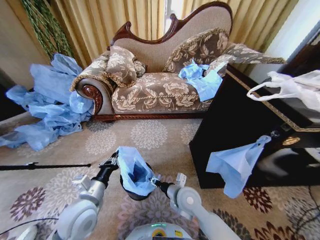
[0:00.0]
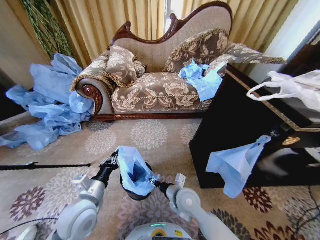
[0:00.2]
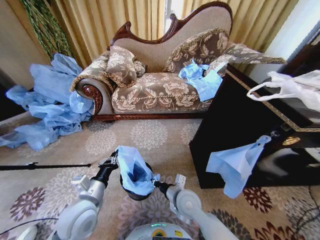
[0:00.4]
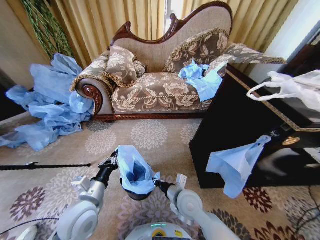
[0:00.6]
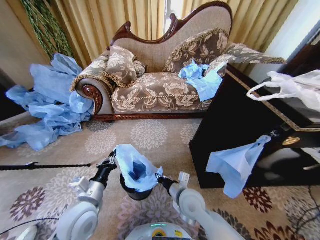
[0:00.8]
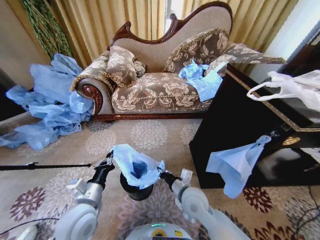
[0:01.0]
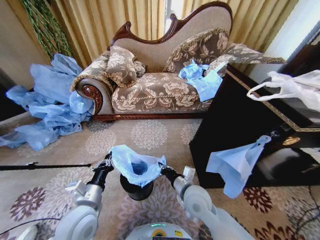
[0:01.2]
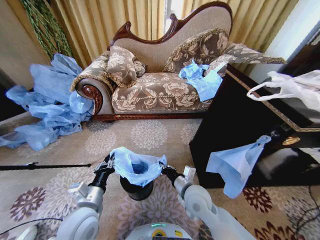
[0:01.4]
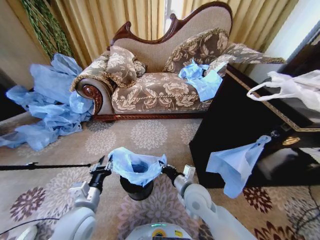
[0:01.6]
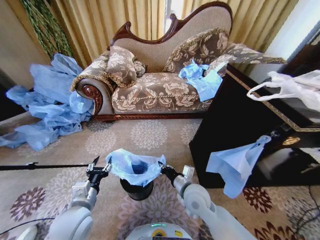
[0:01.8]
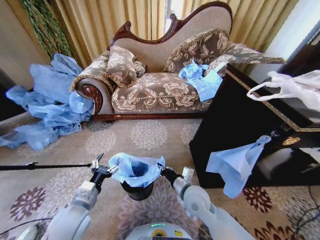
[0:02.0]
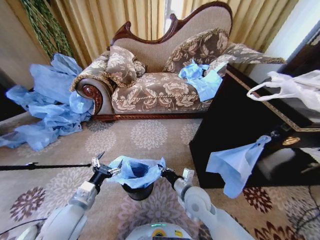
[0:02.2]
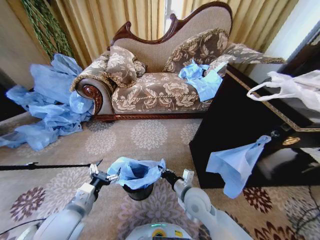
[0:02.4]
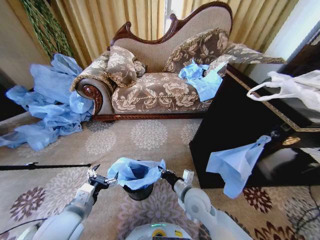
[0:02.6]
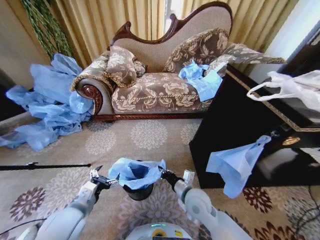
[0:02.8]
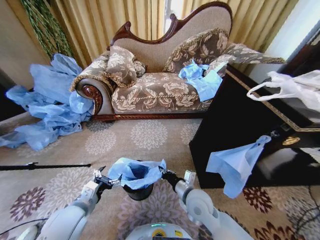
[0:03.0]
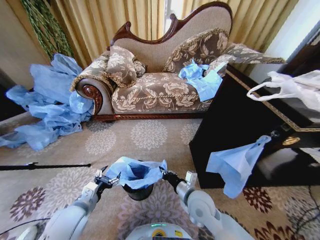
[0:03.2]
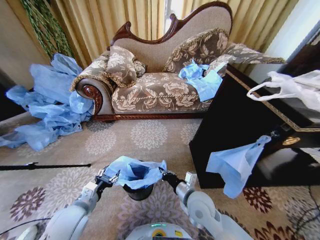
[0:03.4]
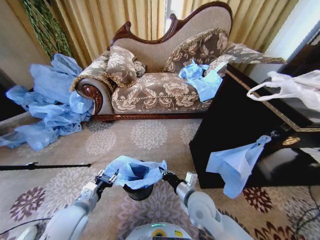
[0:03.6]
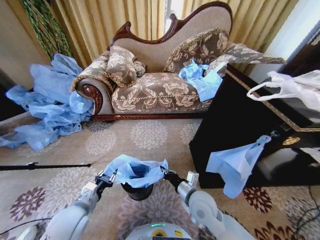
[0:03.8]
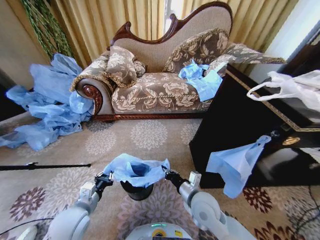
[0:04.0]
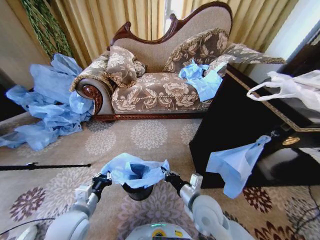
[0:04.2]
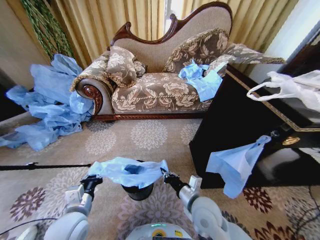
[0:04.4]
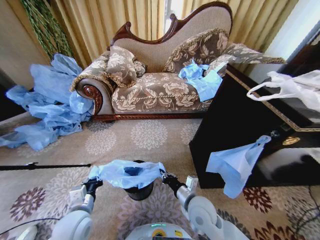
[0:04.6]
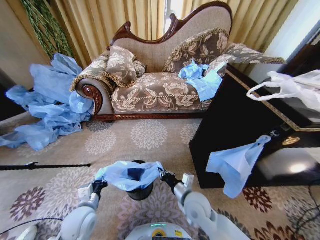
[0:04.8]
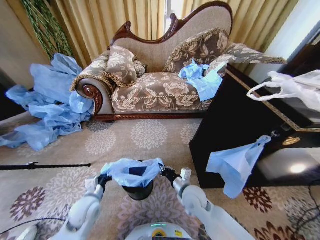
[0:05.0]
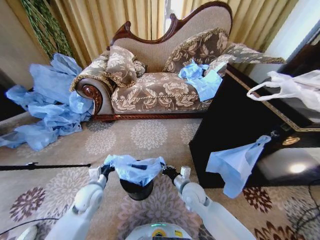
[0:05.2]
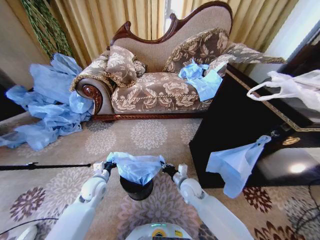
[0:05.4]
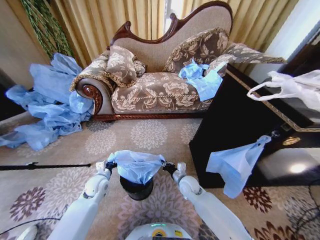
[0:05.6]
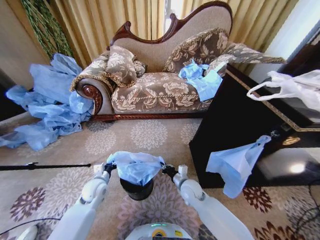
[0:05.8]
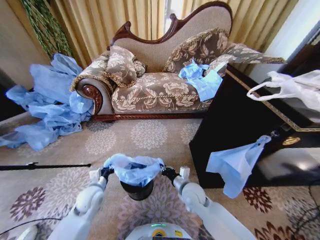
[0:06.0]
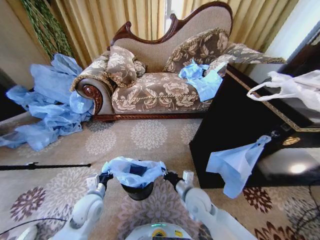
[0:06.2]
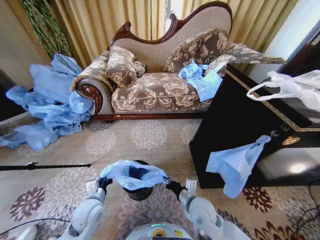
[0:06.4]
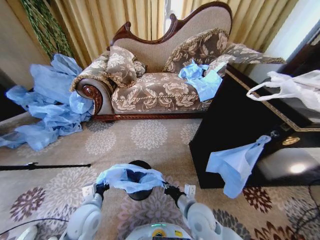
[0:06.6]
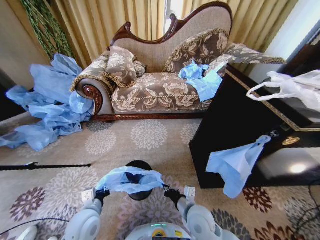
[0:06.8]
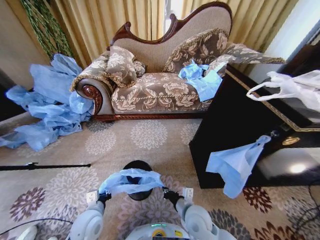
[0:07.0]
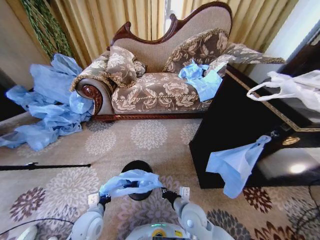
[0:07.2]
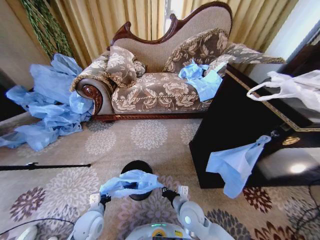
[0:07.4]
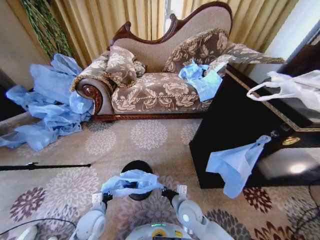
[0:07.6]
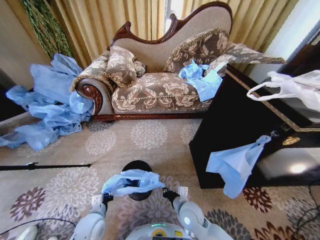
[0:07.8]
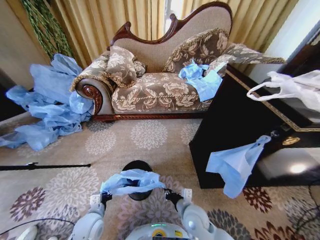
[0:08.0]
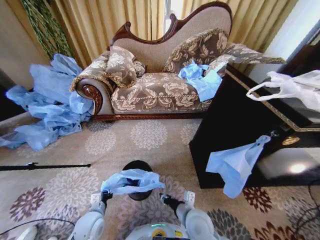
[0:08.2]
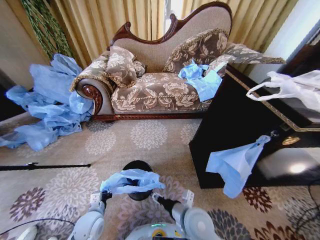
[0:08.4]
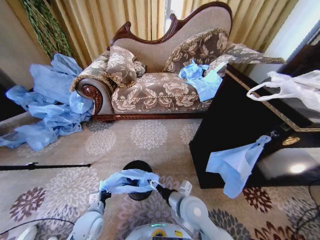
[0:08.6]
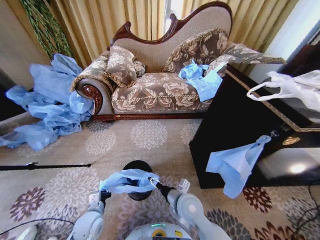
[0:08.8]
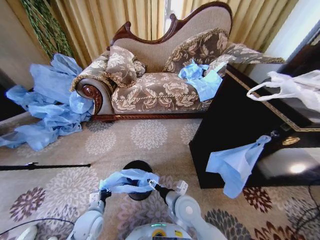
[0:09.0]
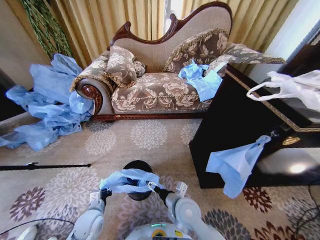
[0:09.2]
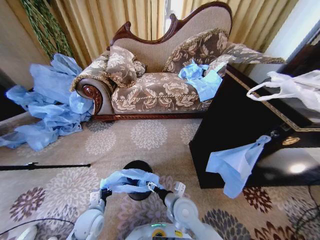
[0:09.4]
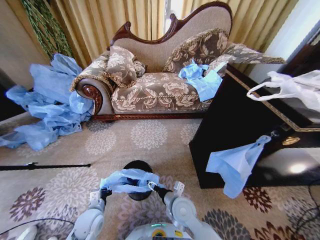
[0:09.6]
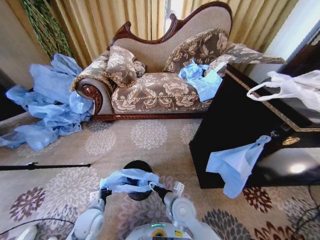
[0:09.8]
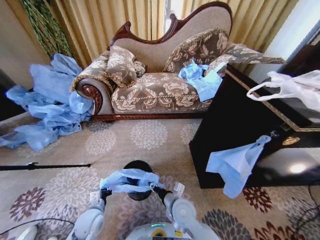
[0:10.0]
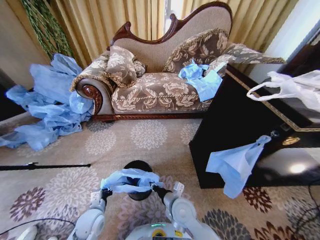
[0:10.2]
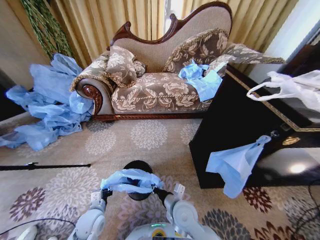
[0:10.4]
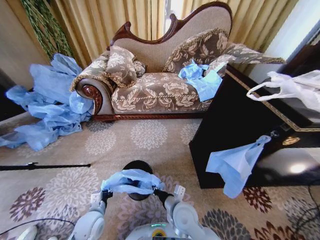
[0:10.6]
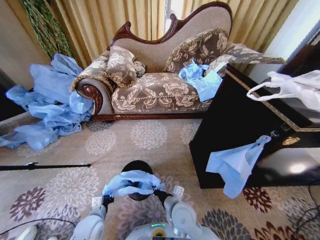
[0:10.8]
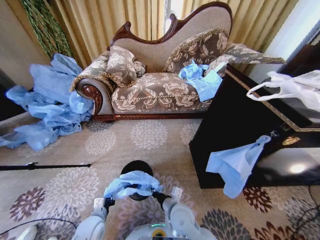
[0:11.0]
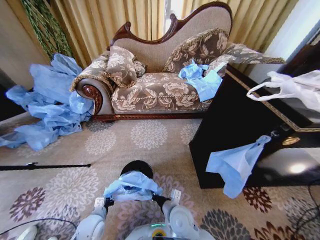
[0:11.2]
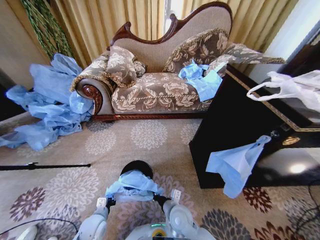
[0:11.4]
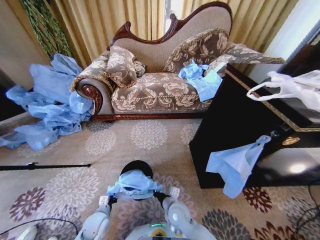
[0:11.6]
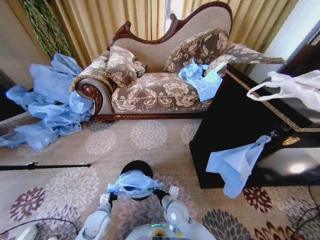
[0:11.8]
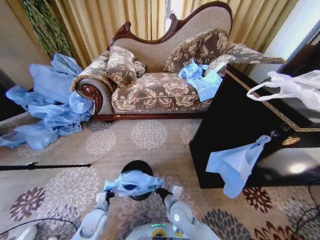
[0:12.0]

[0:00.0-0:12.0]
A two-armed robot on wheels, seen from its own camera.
Task of the whole recording: Place a garbage bag over the trash bin.
0:00.0 to 0:01.6: The right gripper closes. Meanwhile the left gripper opens.
0:01.6 to 0:03.0: The left gripper opens.
0:03.0 to 0:04.4: The left gripper closes.
0:04.4 to 0:06.0: Both grippers travel together forward and downward, about 10 cm.
0:06.0 to 0:07.6: The left gripper moves backward and downward, about 10 cm; the right gripper heads backward, covering some 5 cm.
0:07.6 to 0:09.0: The right gripper shifts approximately 5 cm upward, and opens.
0:09.0 to 0:10.4: The right gripper closes its fingers.
0:10.4 to 0:12.0: The grippers both shift downward by some 5 cm.

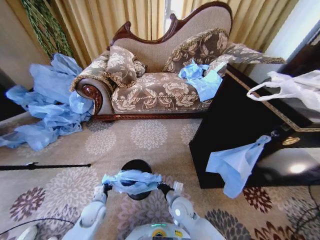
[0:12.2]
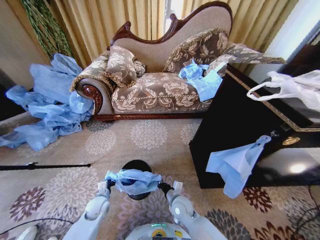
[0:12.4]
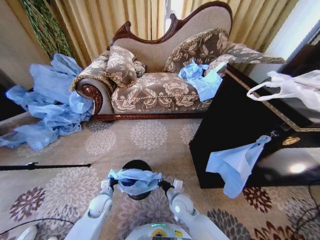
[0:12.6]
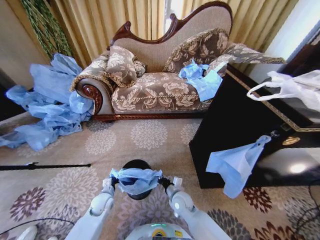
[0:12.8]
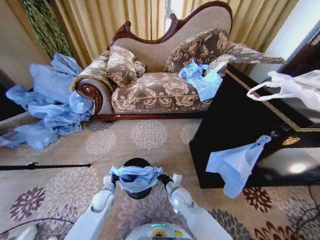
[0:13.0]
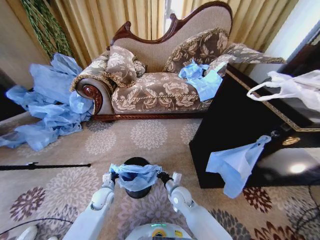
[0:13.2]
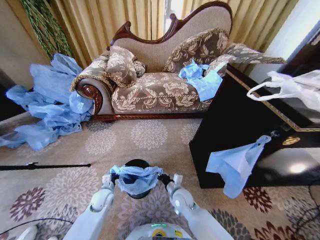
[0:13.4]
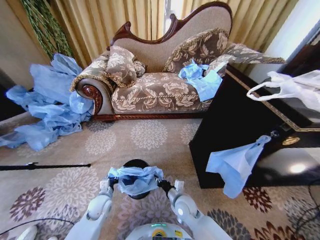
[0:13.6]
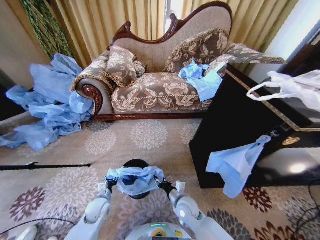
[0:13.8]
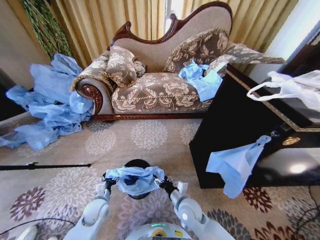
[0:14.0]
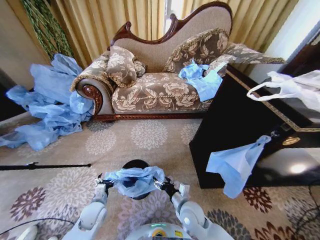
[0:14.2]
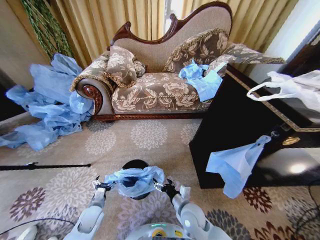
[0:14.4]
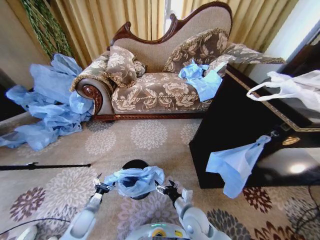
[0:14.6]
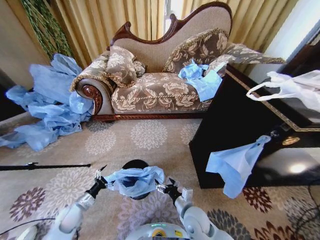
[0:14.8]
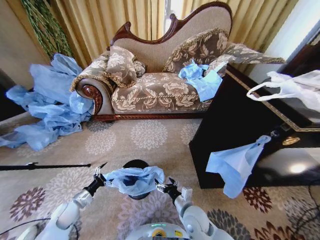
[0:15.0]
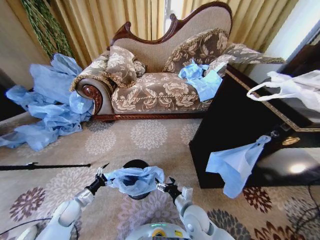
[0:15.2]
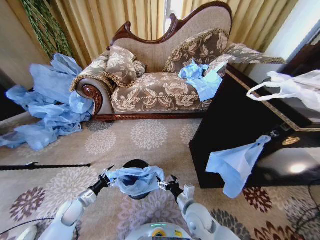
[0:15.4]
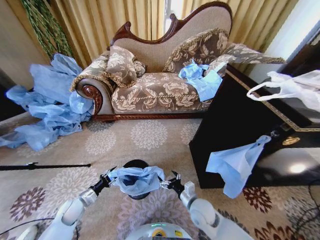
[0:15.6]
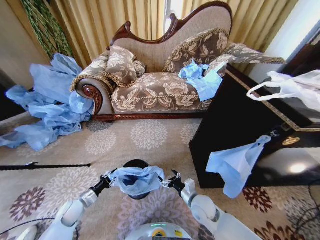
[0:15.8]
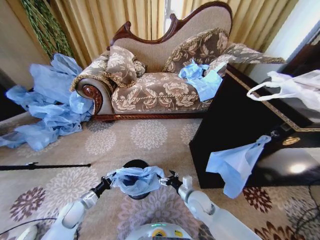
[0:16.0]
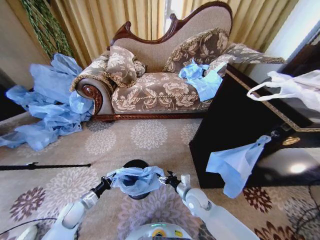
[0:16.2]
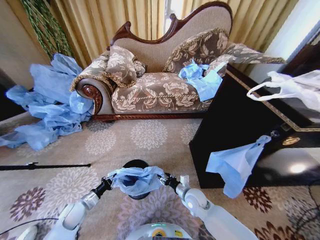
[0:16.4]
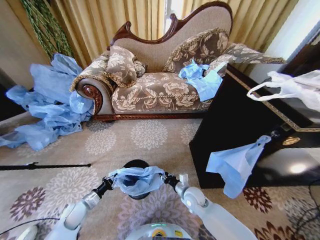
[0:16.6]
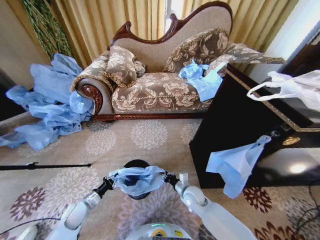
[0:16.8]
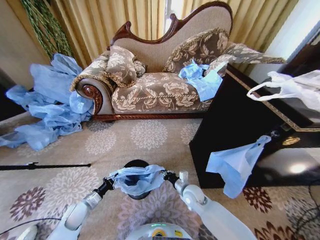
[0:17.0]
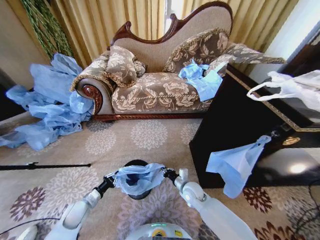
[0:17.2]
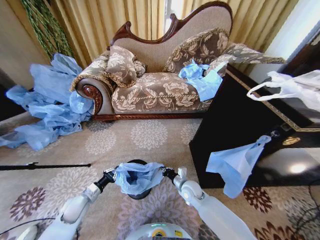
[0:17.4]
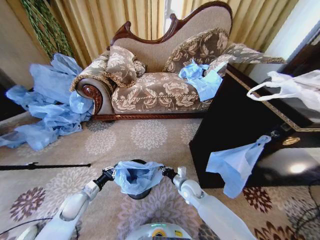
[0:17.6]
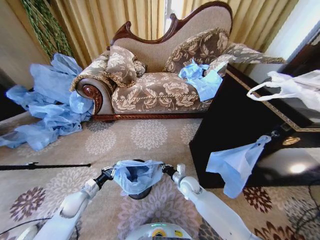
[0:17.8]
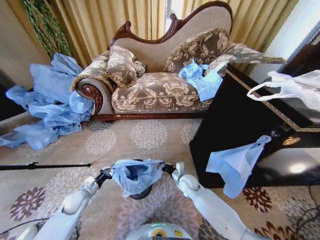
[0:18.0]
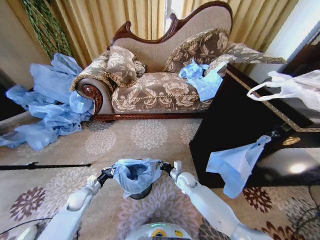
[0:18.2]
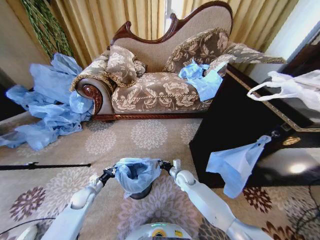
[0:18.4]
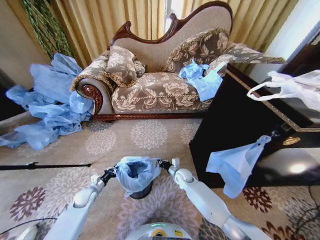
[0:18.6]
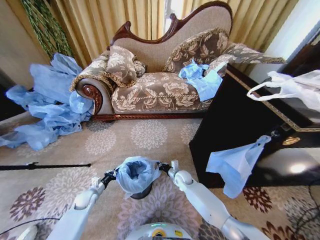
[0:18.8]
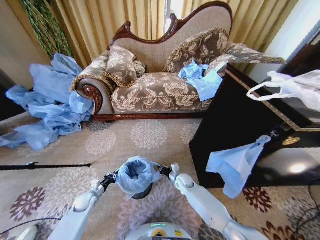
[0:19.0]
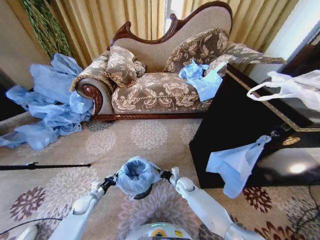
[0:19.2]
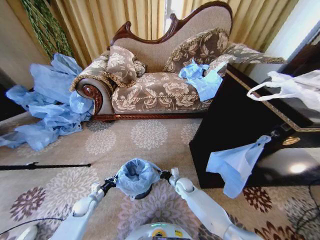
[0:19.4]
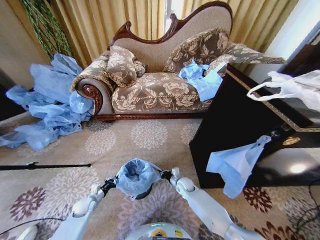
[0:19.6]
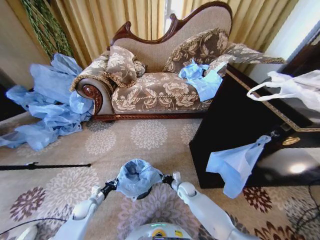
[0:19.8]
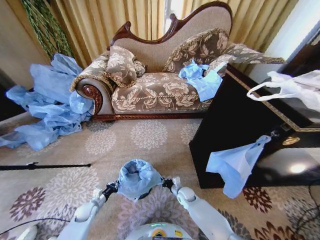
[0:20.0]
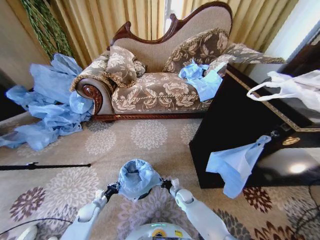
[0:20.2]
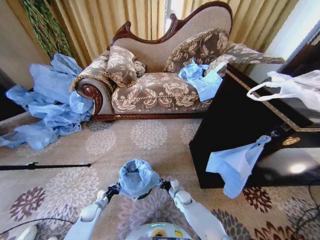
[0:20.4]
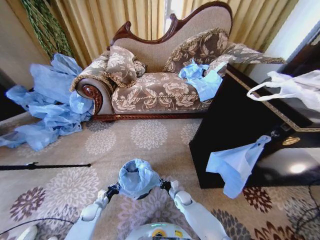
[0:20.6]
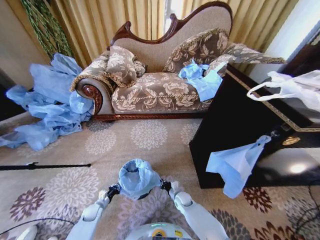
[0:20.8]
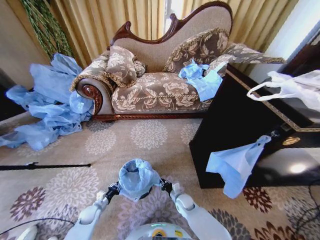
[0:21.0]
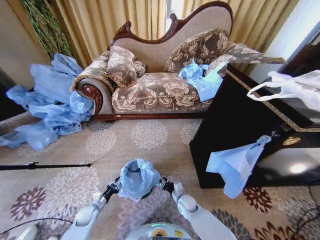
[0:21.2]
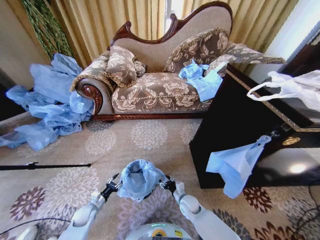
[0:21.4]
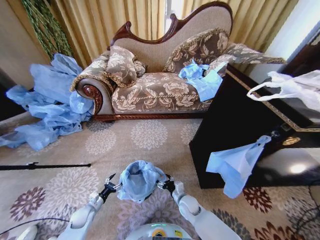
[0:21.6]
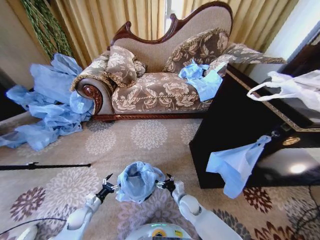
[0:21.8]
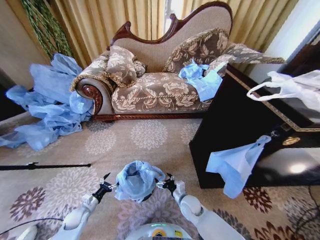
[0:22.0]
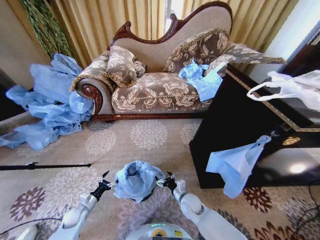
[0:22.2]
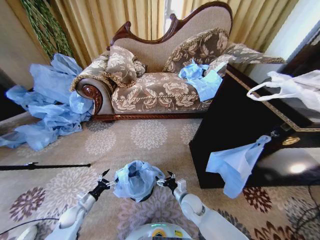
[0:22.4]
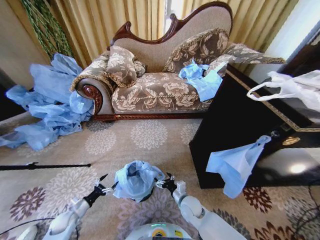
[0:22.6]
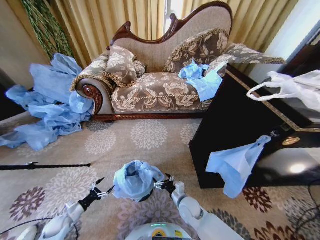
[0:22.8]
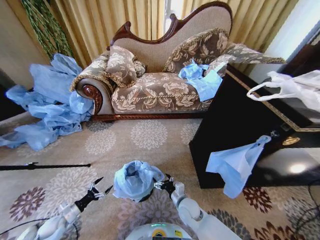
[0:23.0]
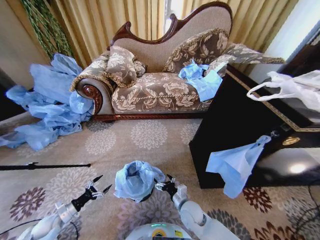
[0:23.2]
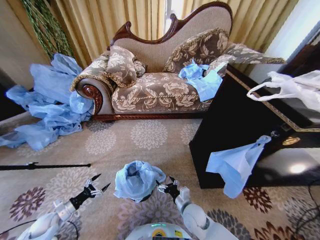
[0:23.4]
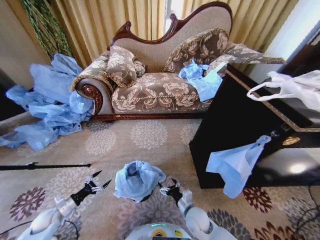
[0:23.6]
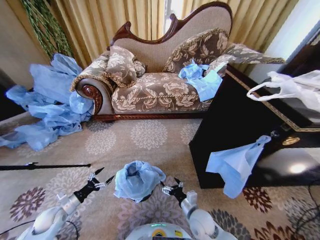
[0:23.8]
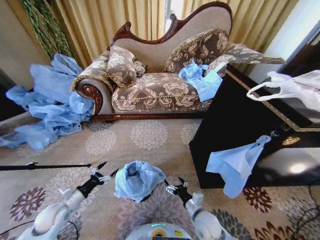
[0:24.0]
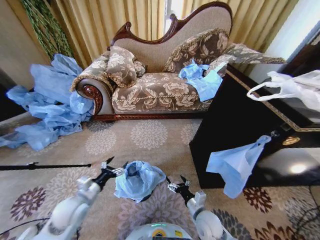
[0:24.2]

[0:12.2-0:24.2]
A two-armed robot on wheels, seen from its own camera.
Task of the whole recording: Place a garbage bag over the trash bin.
0:12.2 to 0:13.8: The left gripper opens up. The right gripper opens.
0:13.8 to 0:15.2: The left gripper goes approximately 15 cm to the left, and opens. Meanwhile the right gripper ends up roughly 5 cm from where it was, and opens up.
0:15.2 to 0:16.6: The right gripper moves forward, some 10 cm, and closes its fingers; the left gripper closes.
0:16.6 to 0:18.2: The left gripper is displaced forward by some 5 cm, while the right gripper shifts roughly 10 cm forward, and closes its fingers.
0:18.2 to 0:19.8: Both grippers travel together downward, roughly 10 cm.
0:19.8 to 0:21.2: The right gripper travels backward by some 5 cm, and opens. Meanwhile the left gripper opens its fingers.
0:21.2 to 0:22.6: The right gripper goes some 10 cm upward, and opens up. Meanwhile the left gripper is displaced to the left by approximately 10 cm, and opens.
0:22.6 to 0:24.2: The left gripper goes about 25 cm upward and to the right. The right gripper is displaced backward by approximately 5 cm.
